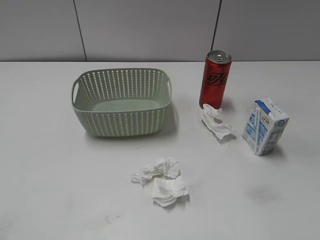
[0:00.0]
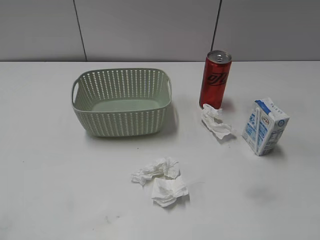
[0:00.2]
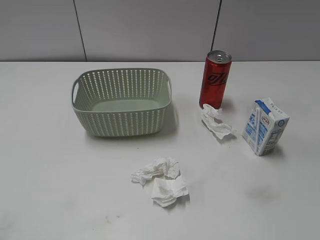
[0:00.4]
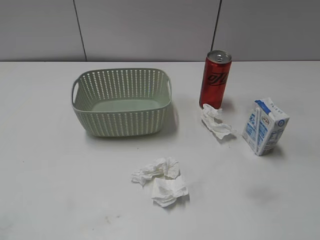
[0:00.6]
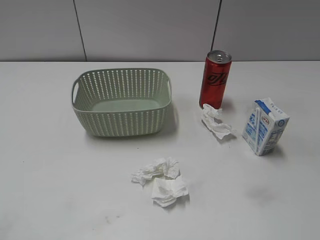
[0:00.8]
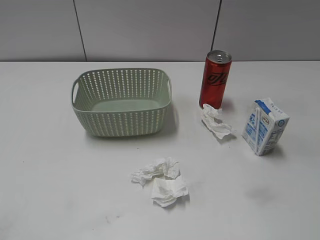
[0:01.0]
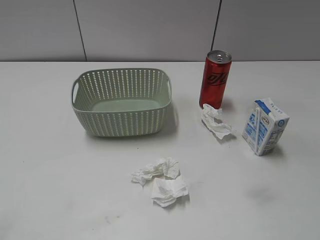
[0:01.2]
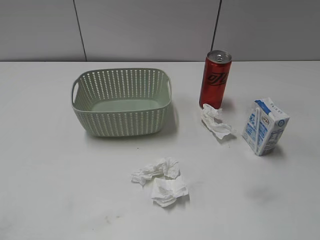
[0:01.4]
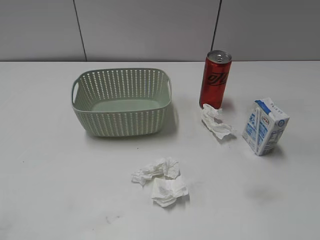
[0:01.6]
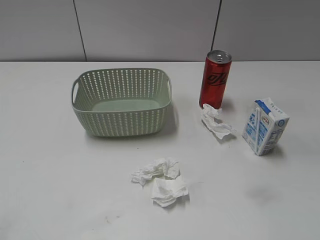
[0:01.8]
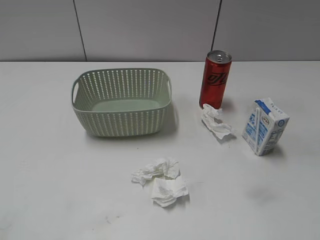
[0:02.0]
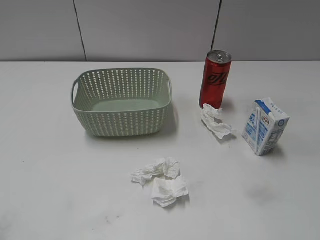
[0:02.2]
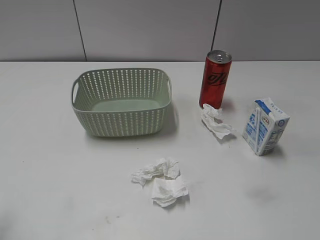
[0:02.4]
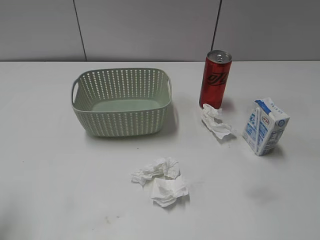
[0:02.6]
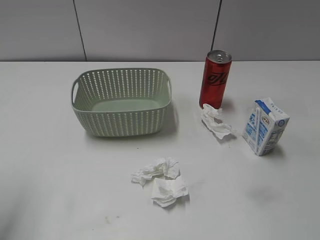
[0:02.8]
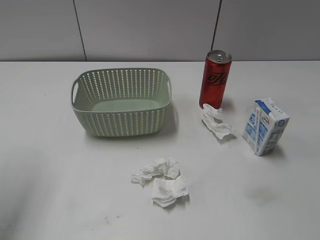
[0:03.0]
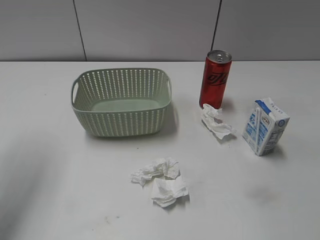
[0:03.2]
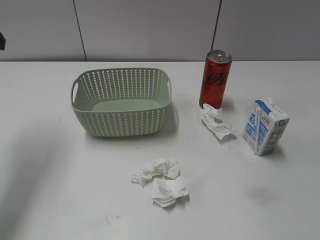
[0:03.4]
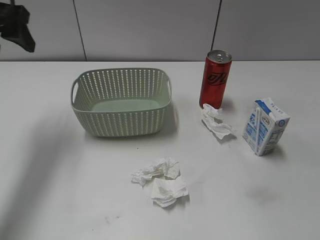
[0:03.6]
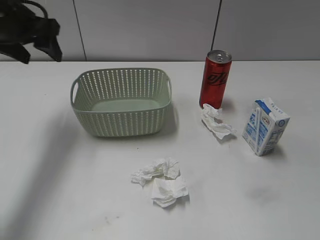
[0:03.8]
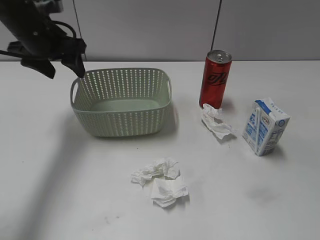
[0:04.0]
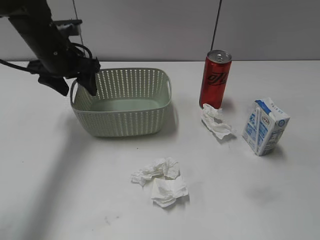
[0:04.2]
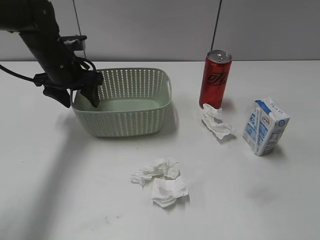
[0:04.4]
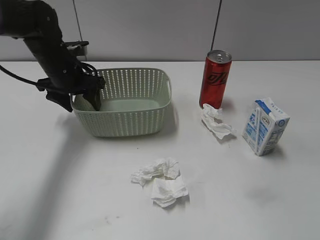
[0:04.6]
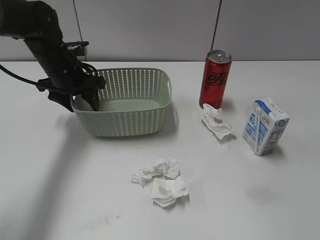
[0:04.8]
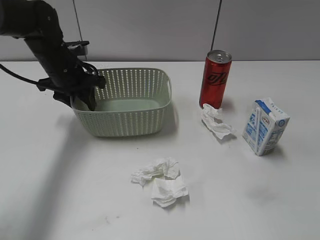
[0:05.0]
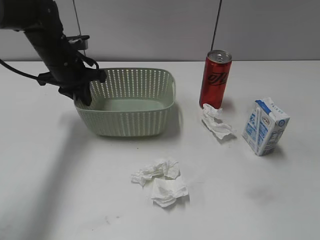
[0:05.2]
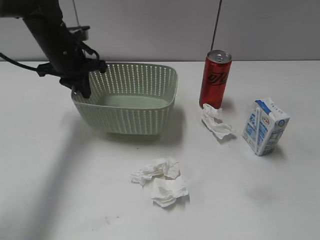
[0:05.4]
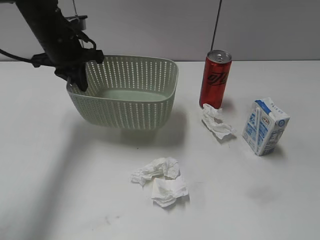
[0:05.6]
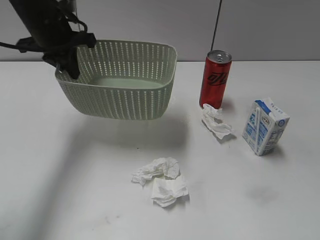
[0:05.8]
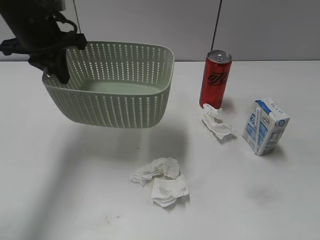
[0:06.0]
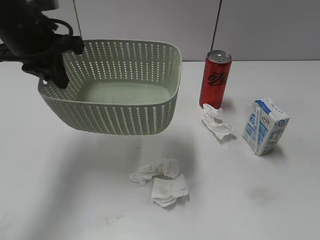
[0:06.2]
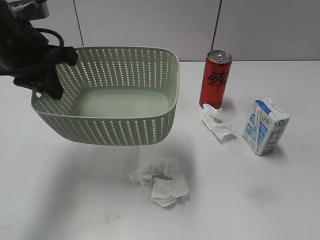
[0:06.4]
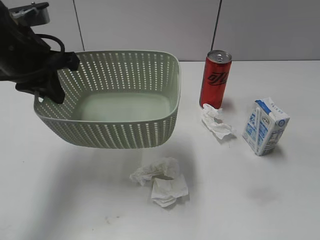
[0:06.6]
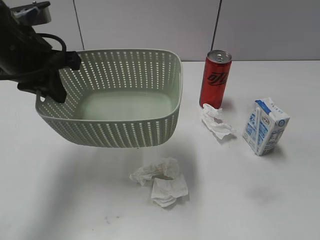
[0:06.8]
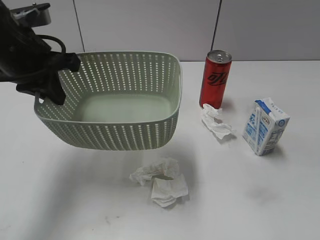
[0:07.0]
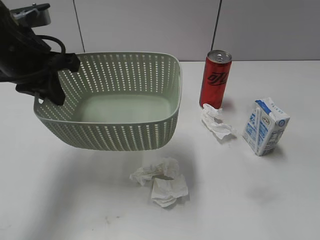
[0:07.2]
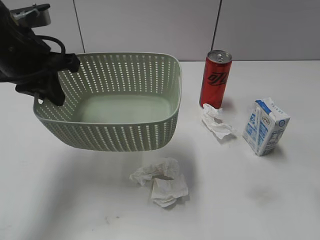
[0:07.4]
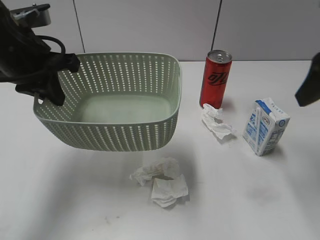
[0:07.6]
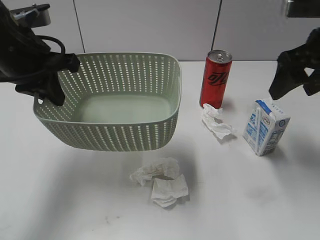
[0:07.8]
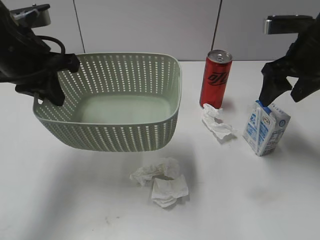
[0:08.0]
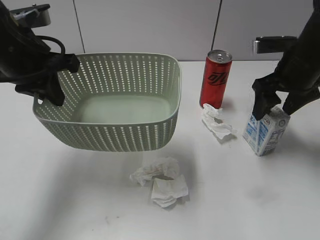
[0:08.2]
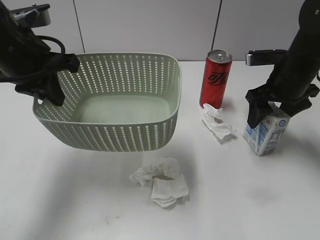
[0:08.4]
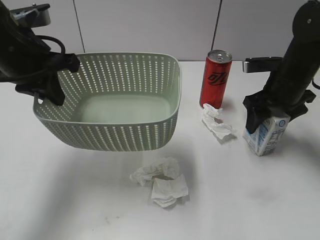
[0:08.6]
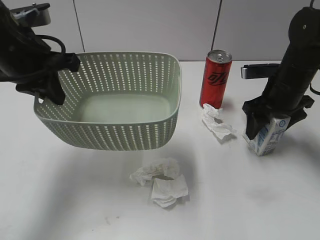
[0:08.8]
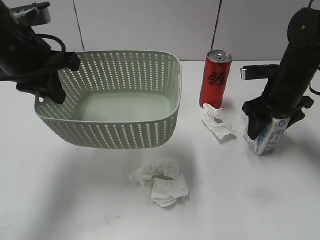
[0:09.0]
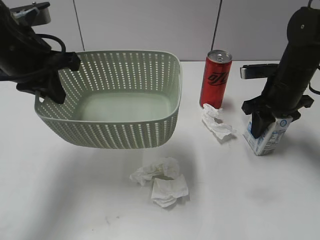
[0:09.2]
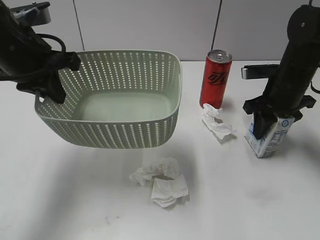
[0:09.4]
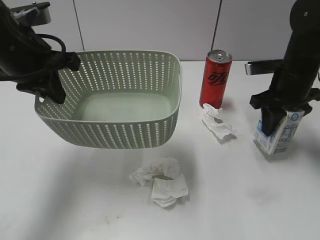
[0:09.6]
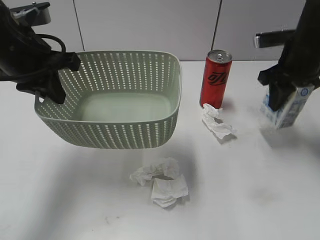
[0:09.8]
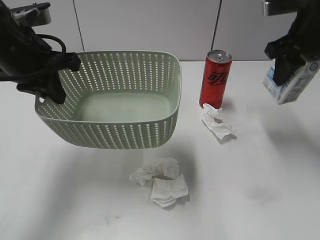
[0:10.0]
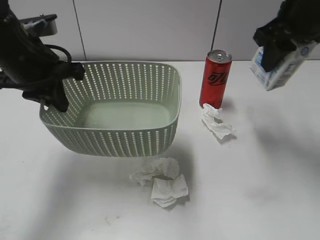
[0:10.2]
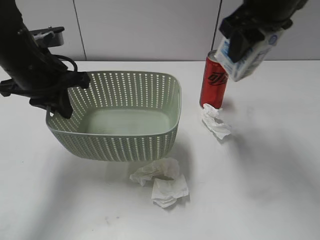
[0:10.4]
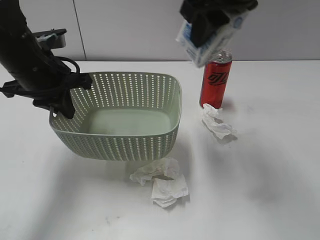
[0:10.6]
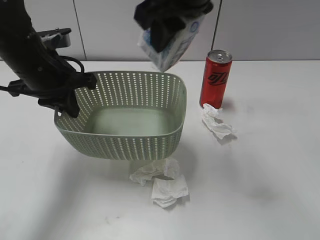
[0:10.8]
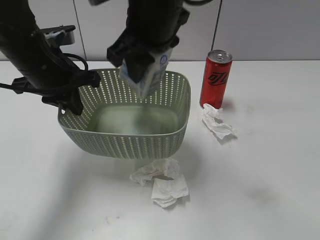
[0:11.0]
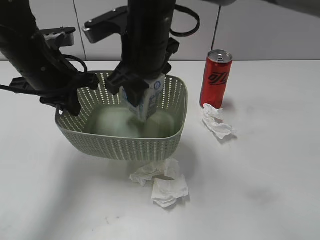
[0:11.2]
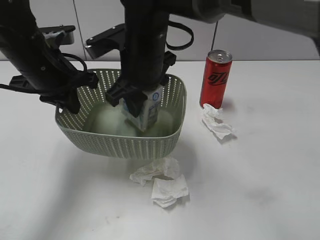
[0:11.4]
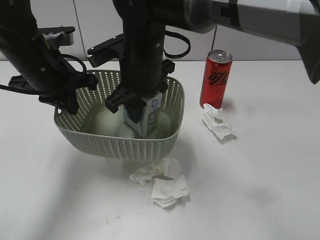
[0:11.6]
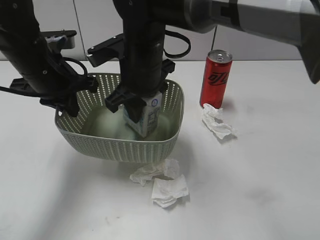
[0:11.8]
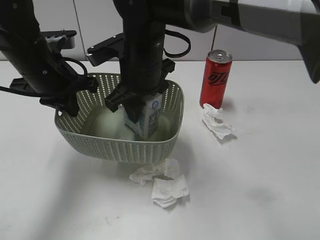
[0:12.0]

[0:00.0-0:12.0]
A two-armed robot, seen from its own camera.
Step, 0:03.4 to 0:05.2: Grasp the basket with left gripper.
Step, 0:05.4 to 0:07.4: Lift the basket with left gripper.
Step, 0:07.6 to 0:09.4: Grasp the milk with right gripper.
0:01.6 to 0:03.0: The left gripper moves forward, about 20 cm.
0:03.0 to 0:04.4: The left gripper travels forward, downward and to the right by some 30 cm.
0:04.4 to 0:06.0: The left gripper goes some 10 cm upward, and closes.
0:06.0 to 0:07.6: The right gripper moves forward, approximately 25 cm. The left gripper goes about 10 cm backward.
0:07.6 to 0:09.0: The right gripper goes approximately 20 cm downward and forward.
0:09.0 to 0:10.4: The right gripper shifts approximately 20 cm upward and to the left, and closes.
0:10.4 to 0:12.0: The right gripper moves to the left and downward, roughly 20 cm.

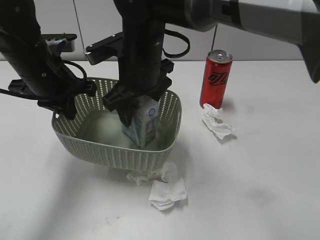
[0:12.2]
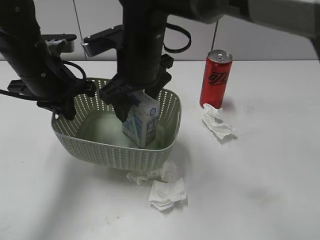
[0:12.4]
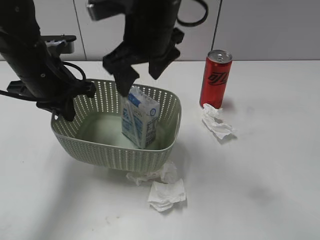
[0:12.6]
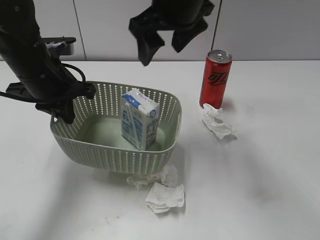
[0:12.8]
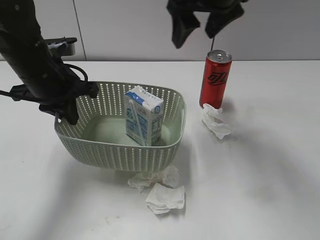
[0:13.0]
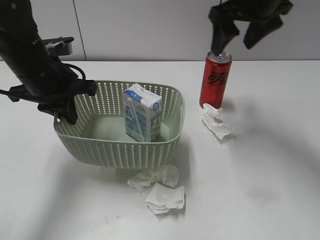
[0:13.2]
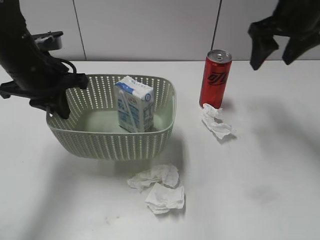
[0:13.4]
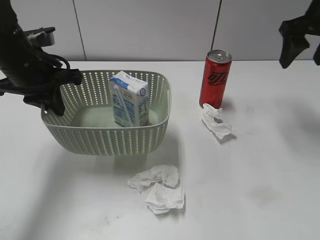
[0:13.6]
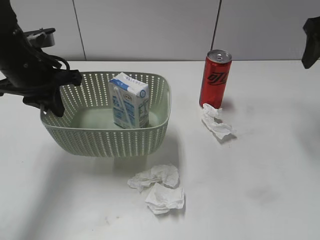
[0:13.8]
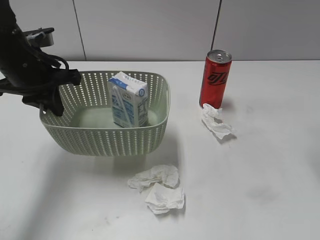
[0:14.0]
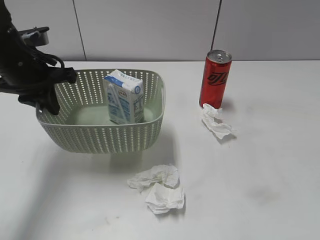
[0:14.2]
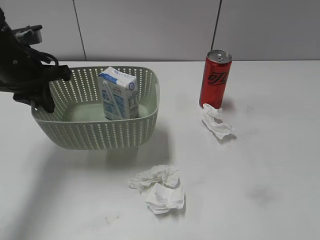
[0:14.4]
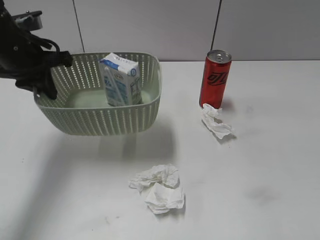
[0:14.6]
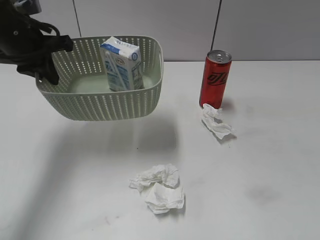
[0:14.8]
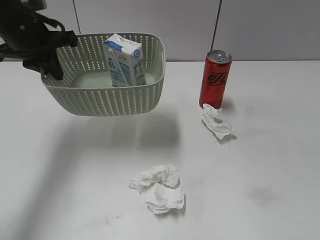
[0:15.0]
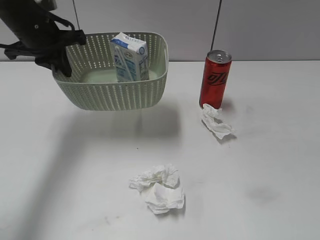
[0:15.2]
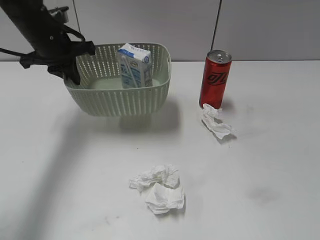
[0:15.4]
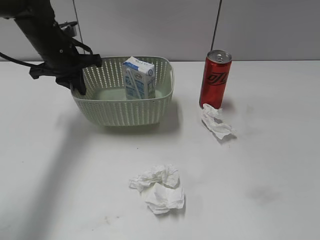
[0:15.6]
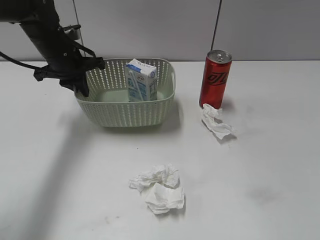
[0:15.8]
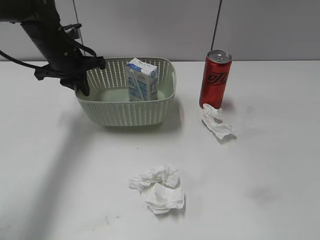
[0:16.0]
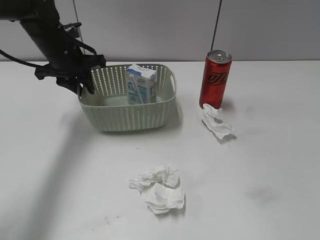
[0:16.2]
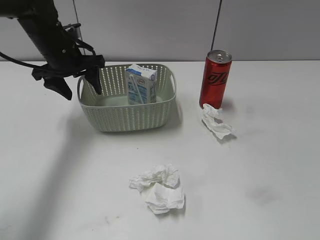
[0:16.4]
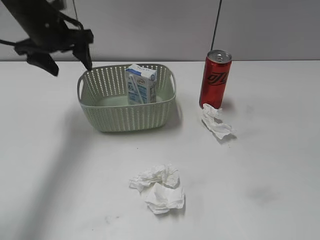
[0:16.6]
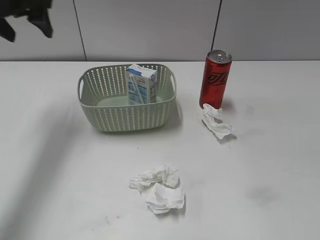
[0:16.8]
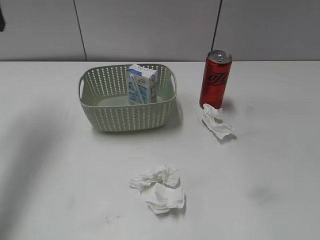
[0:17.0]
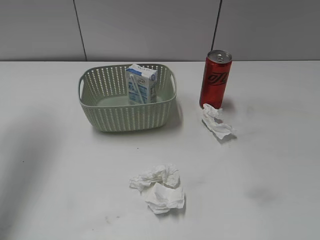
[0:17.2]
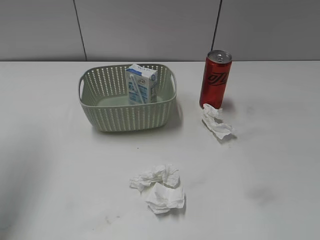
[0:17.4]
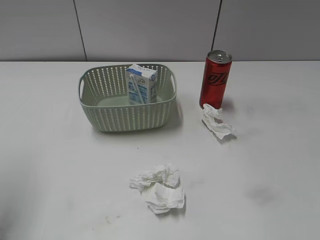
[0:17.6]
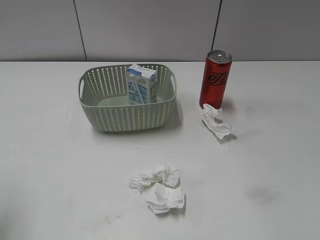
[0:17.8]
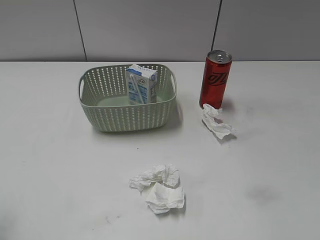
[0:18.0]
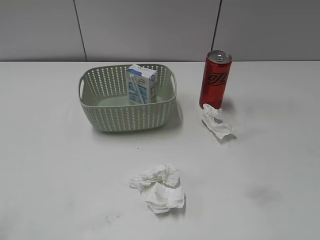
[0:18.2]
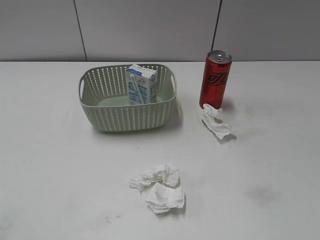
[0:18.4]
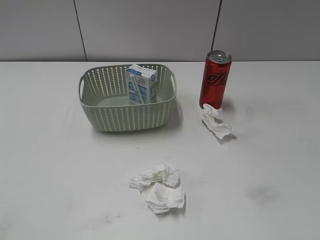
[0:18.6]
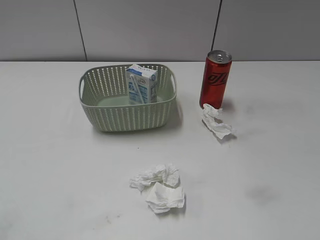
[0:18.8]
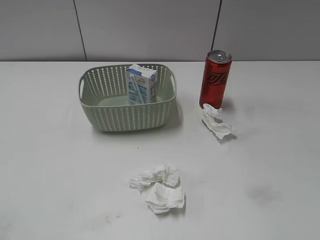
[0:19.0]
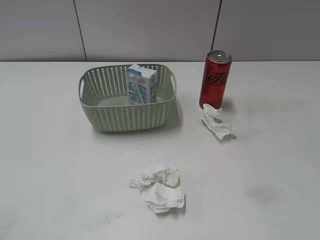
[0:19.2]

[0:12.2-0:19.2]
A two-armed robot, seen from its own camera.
Step, 0:12.8 to 0:16.4: Place the basket on the table with left gripper.
0:12.2 to 0:13.6: The right gripper heads to the right, covering approximately 30 cm.
0:13.6 to 0:15.0: The right gripper goes about 35 cm backward. The left gripper changes place by roughly 5 cm.
0:15.0 to 0:16.4: The left gripper heads downward and forward, covering roughly 10 cm, and opens up.
0:16.4 to 0:17.8: The left gripper goes about 30 cm backward, upward and to the left.

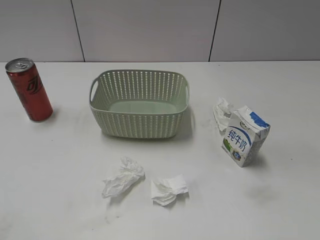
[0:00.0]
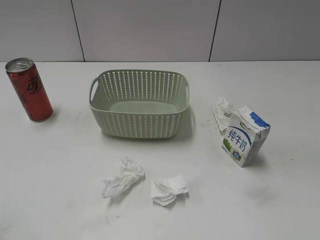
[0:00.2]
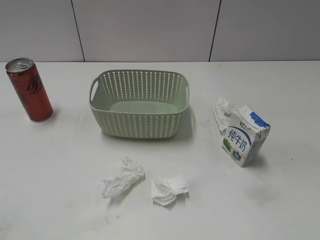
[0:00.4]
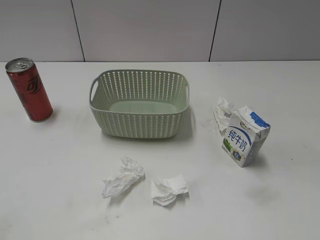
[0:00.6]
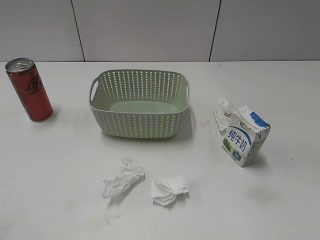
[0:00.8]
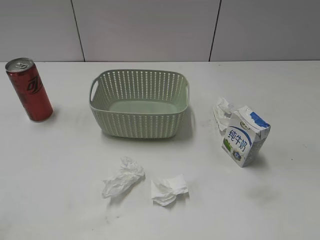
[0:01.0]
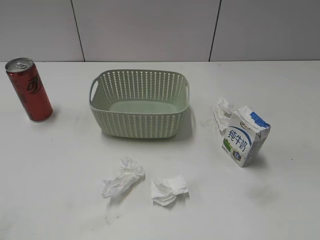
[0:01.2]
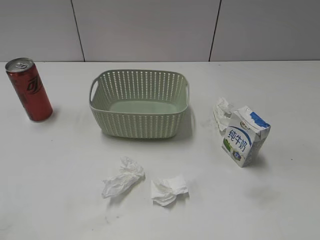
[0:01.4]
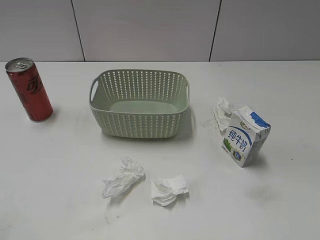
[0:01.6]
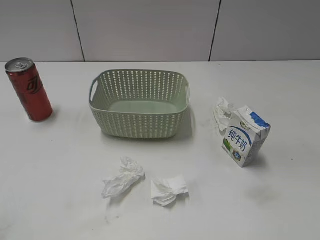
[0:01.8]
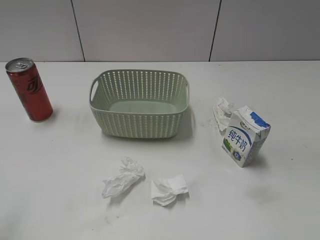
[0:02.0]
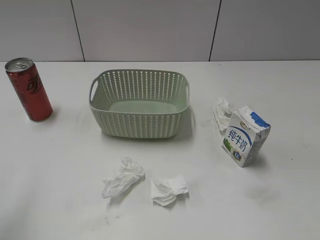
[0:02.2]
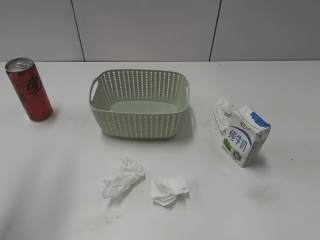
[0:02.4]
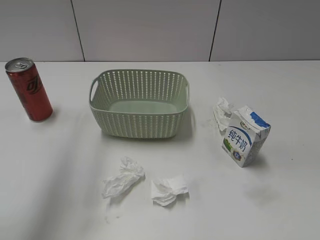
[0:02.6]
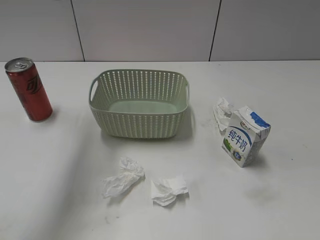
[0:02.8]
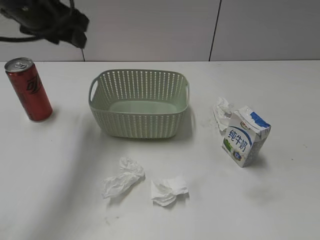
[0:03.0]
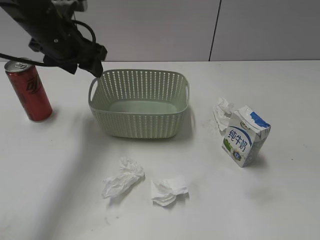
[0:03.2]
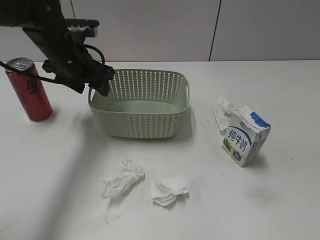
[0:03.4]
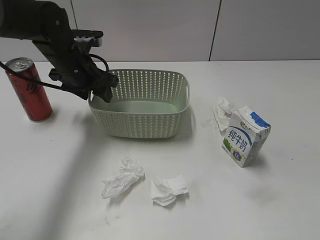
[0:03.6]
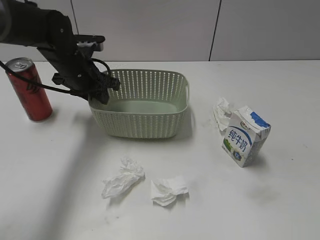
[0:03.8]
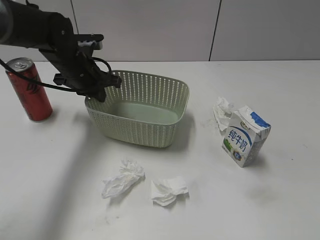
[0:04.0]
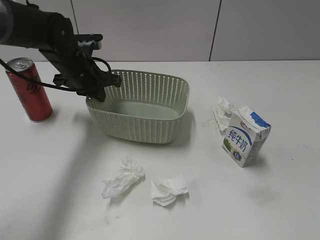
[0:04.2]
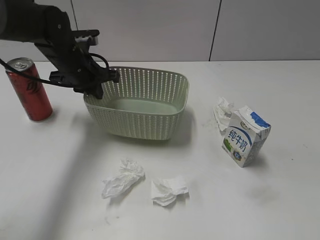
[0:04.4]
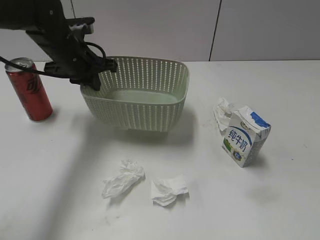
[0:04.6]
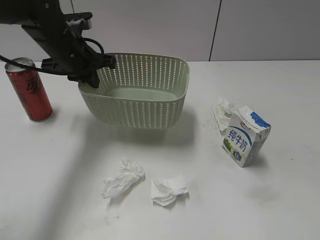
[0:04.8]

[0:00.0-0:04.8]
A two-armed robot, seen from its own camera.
Step, 0:03.0 to 0:04.0: Grasp the basket with left gripper.
Step, 0:04.2 to 0:04.8: Lift the basket with left gripper.
0:01.6 to 0:03.2: The left gripper shifts roughly 40 cm forward.
0:03.2 to 0:04.8: The left gripper closes.
